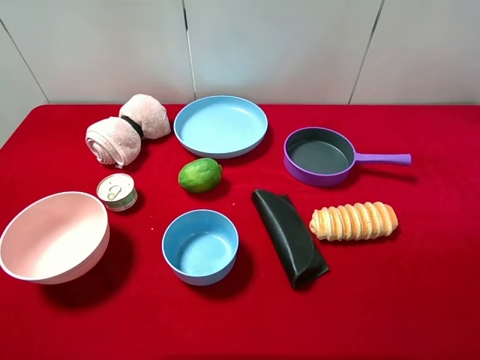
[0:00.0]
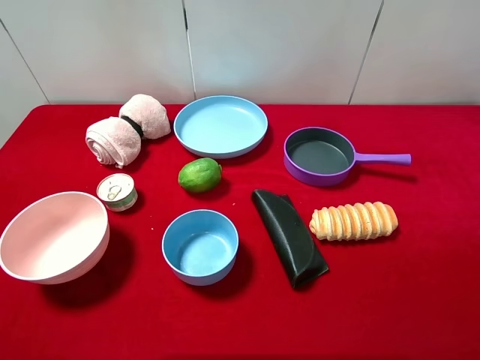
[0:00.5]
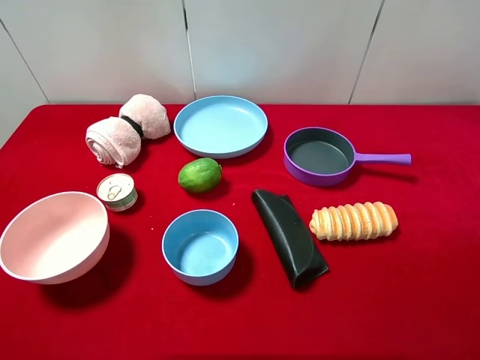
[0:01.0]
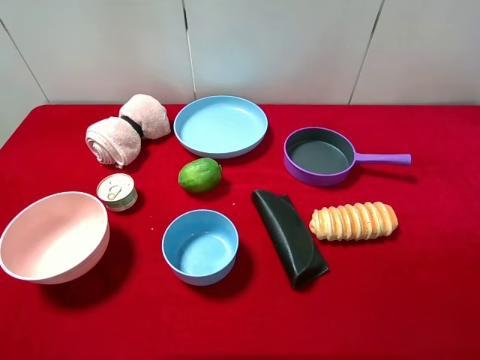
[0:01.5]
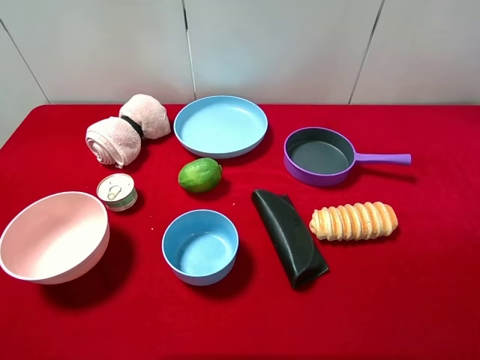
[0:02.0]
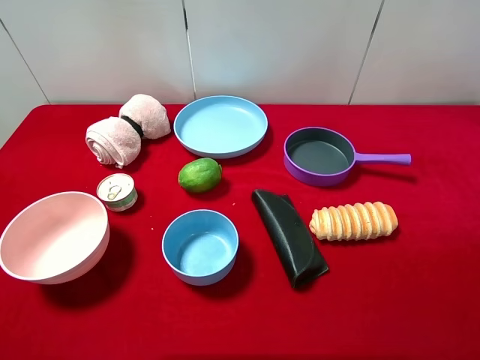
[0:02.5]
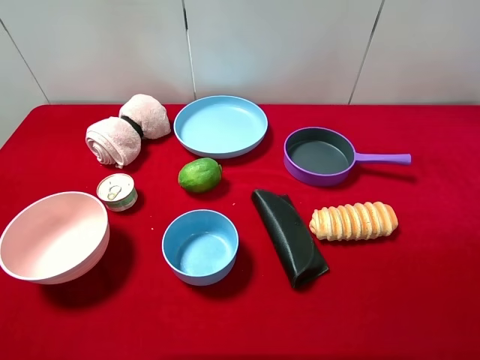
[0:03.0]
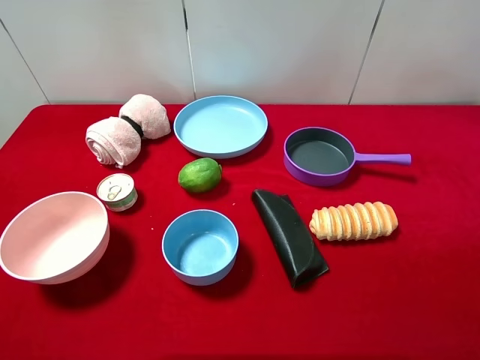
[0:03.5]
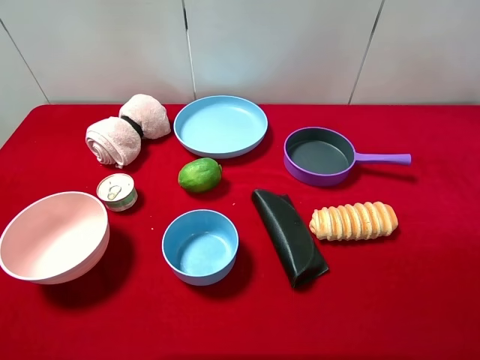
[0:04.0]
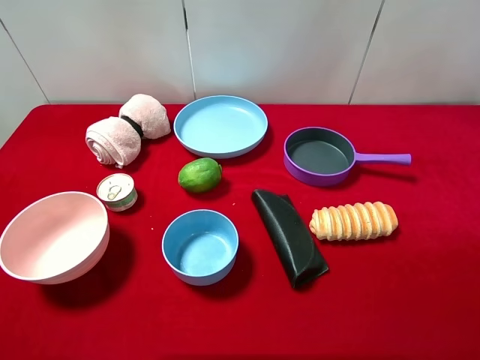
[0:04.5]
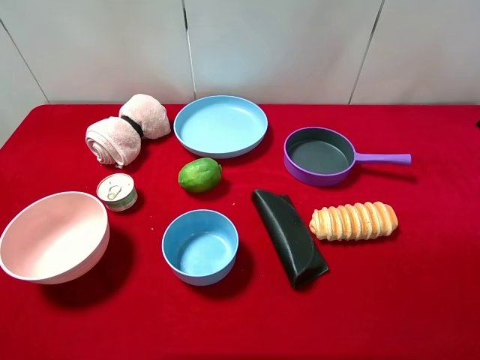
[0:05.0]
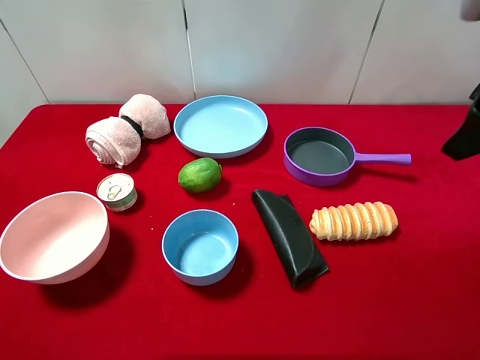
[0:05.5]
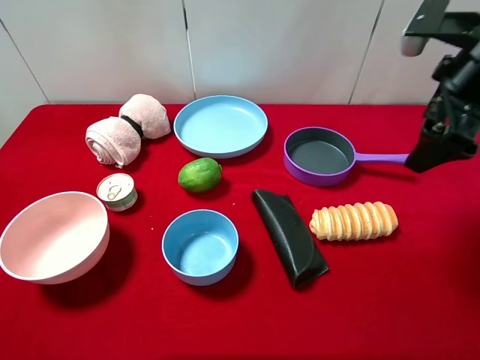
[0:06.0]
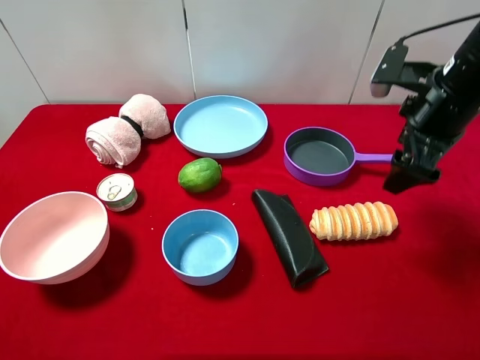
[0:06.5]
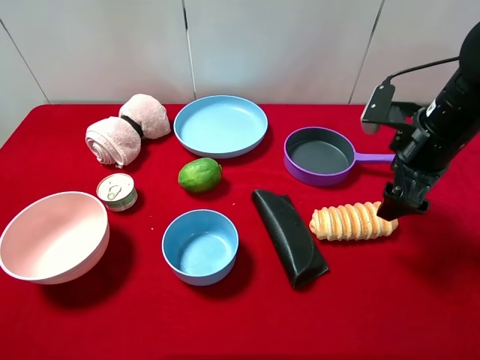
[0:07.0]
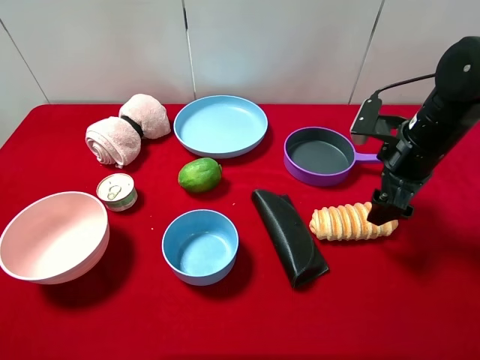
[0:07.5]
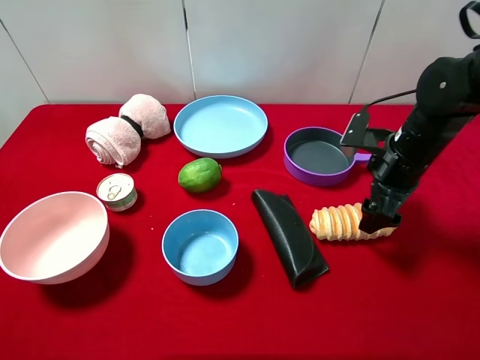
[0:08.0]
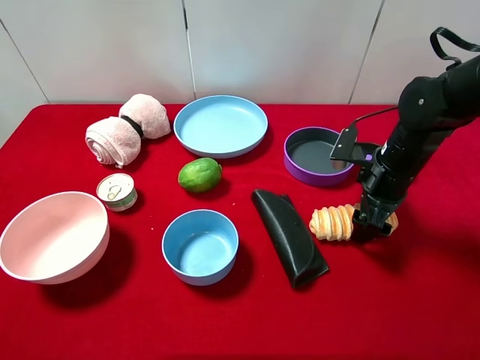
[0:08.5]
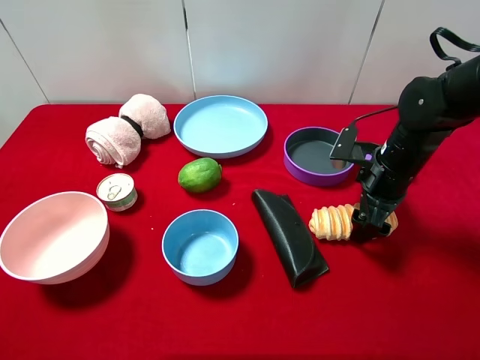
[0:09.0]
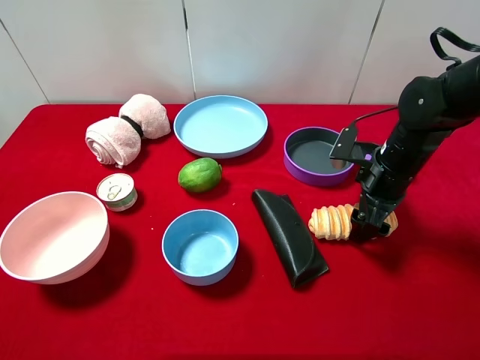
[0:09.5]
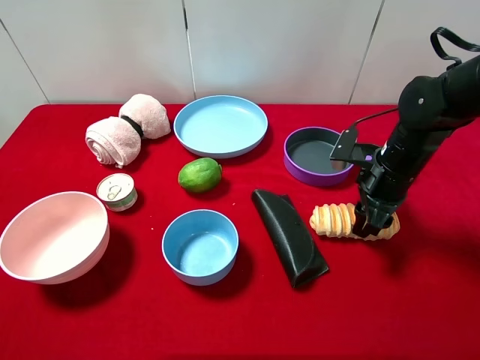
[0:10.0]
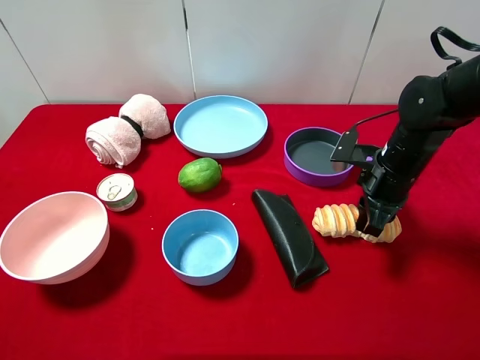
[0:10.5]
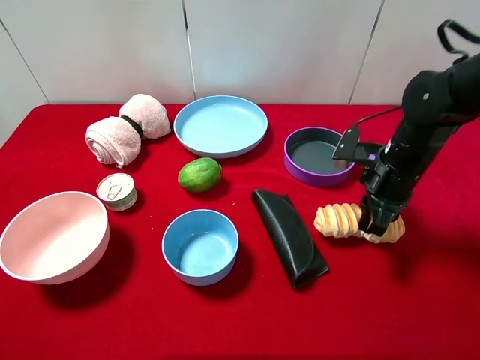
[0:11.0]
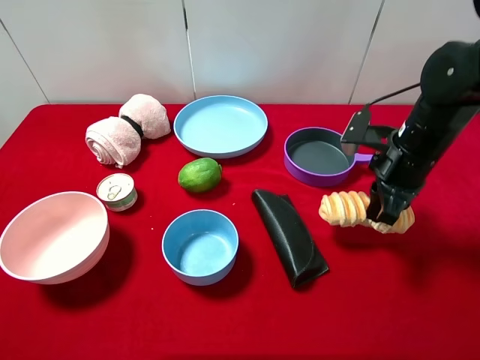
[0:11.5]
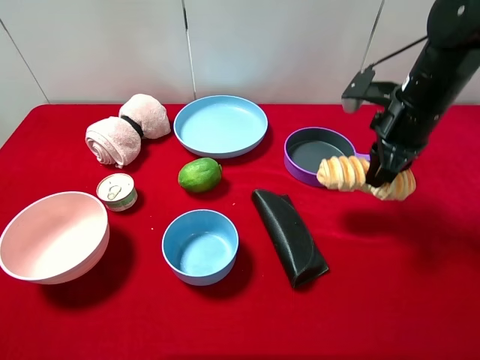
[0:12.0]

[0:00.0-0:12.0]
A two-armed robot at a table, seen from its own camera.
Task of the whole recording: pick up an item with a gripper and place it in a random container on the desktop.
0:04.0 to 0:06.0: The right gripper heads forward, covering about 20 cm.
0:06.0 to 0:08.0: The right gripper travels downward by approximately 15 cm.
0:08.0 to 0:10.0: The right gripper closes.
0:10.0 to 0:12.0: The right gripper heads upward, covering some 10 cm, and closes its fingers.

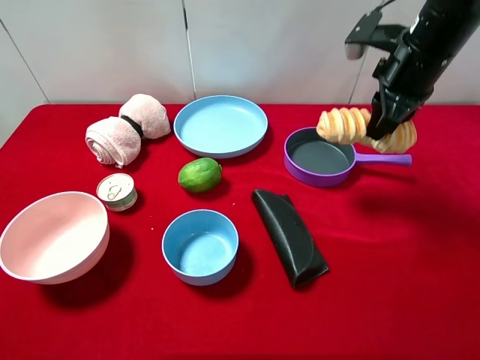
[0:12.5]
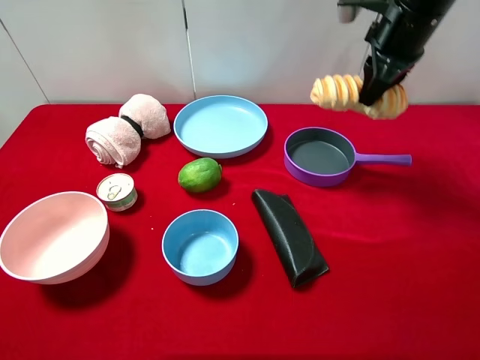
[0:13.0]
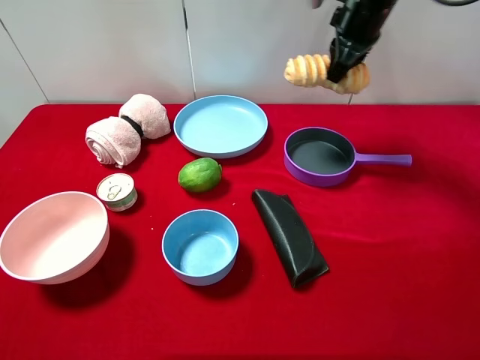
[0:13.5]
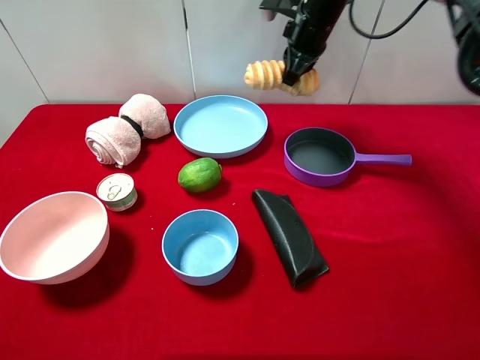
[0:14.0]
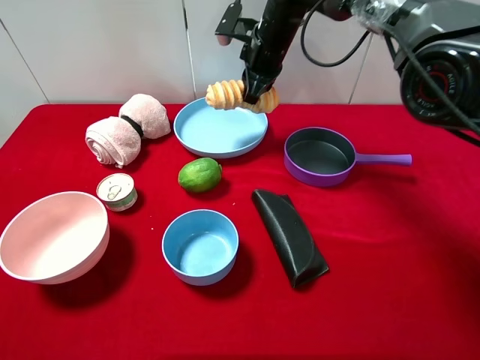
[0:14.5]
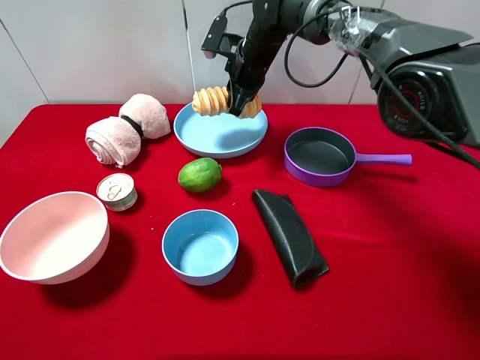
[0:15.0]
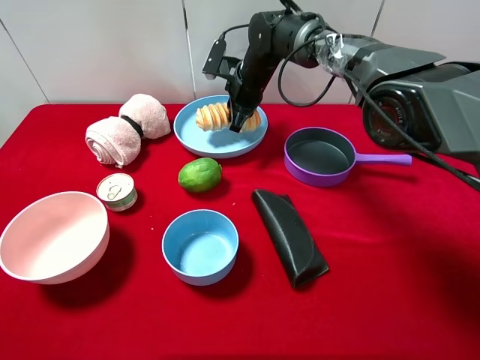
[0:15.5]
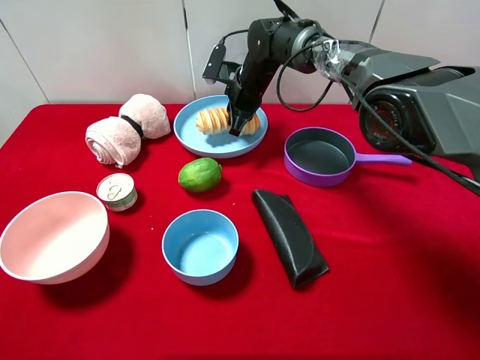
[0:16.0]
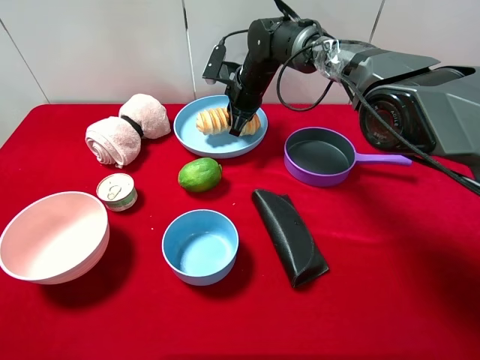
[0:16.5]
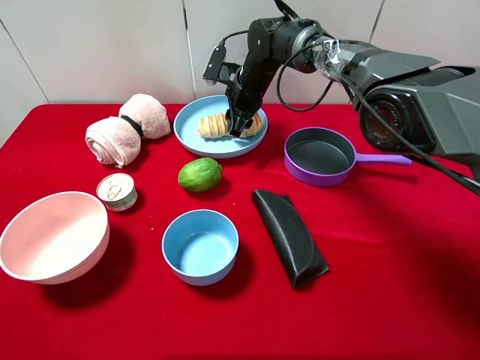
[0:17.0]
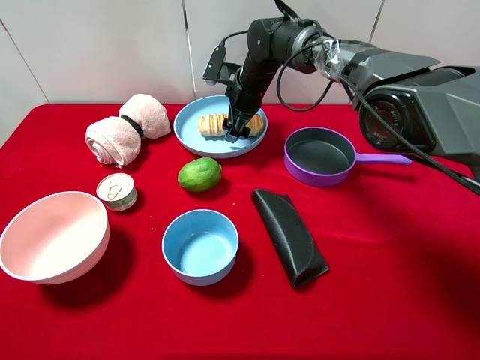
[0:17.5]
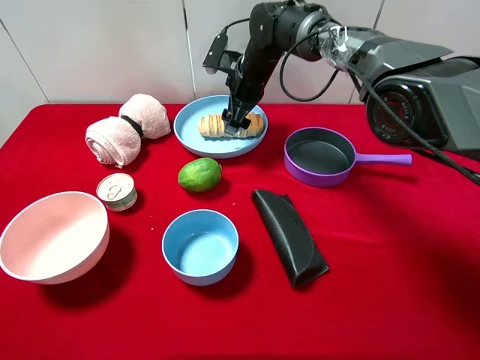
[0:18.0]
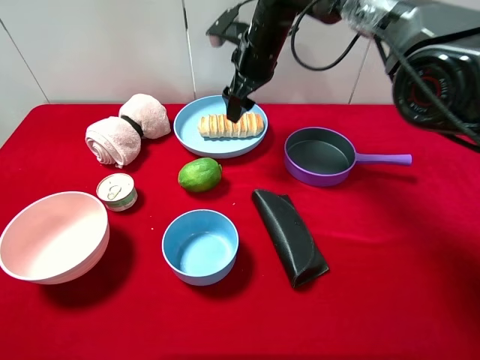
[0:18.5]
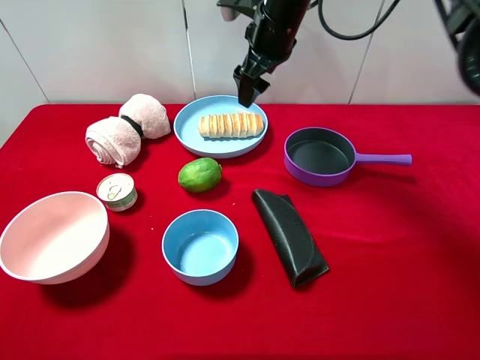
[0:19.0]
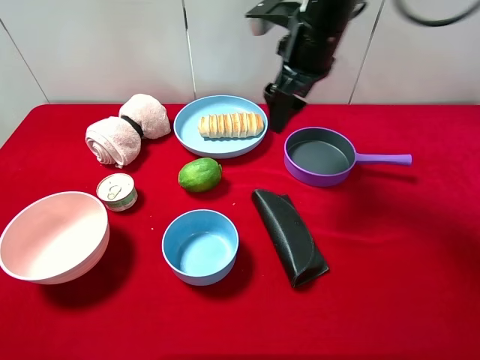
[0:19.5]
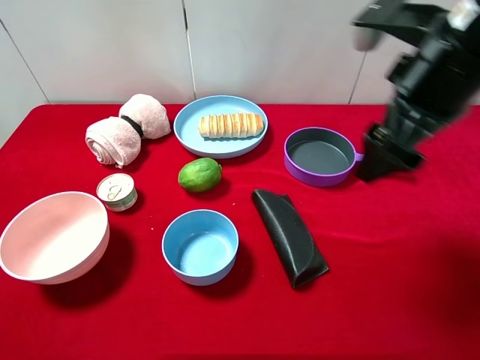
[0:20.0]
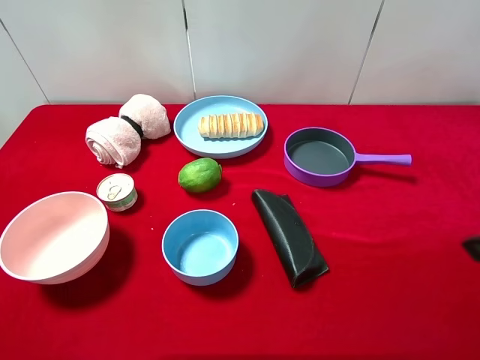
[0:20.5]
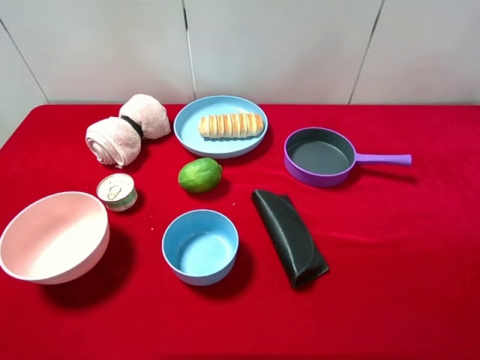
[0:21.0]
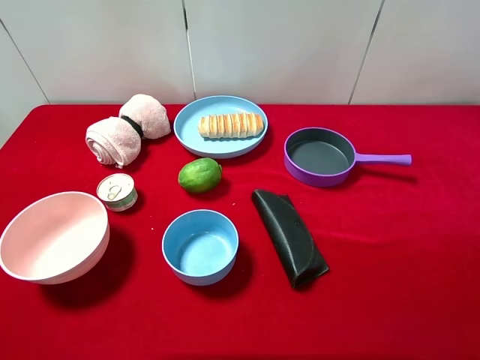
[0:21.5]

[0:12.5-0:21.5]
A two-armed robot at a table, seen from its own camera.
Task of the whole recording: pick up an item with a gripper and place it in a random container on the desktop.
0:12.5 to 0:14.5: The right gripper travels to the left and forward by about 20 cm.
0:14.5 to 0:17.0: The right gripper travels downward by about 10 cm, and opens.
0:17.0 to 0:19.5: The right gripper shifts roughly 20 cm upward, backward and to the right, and opens its fingers.
0:19.5 to 0:21.5: The right gripper heads backward and to the right, covering about 40 cm.

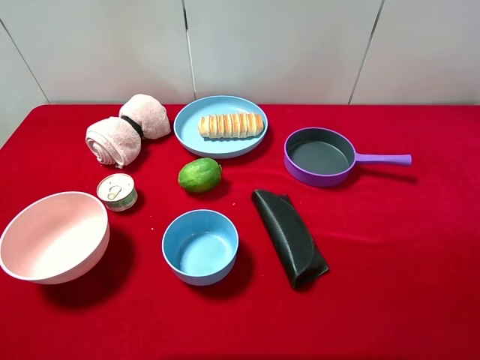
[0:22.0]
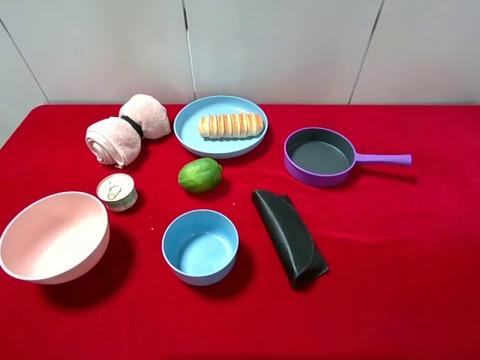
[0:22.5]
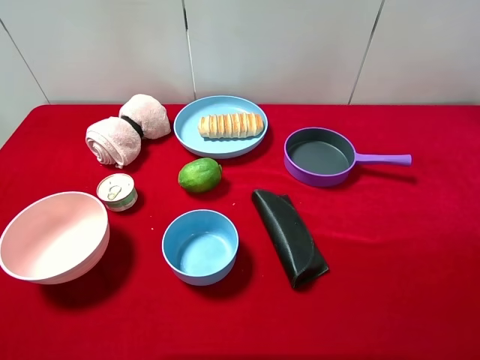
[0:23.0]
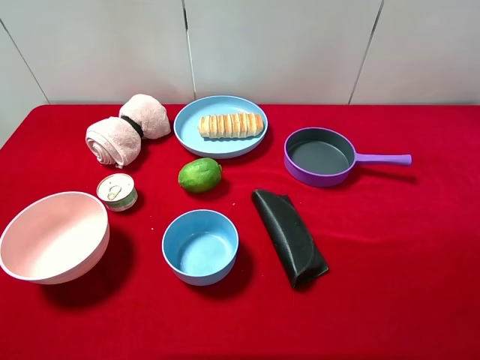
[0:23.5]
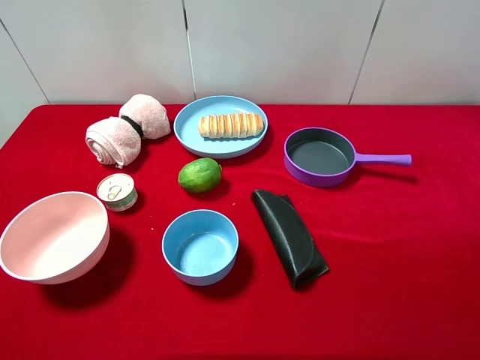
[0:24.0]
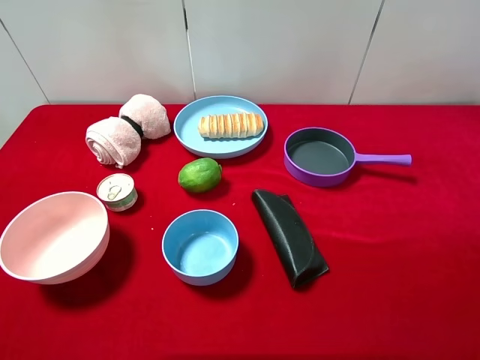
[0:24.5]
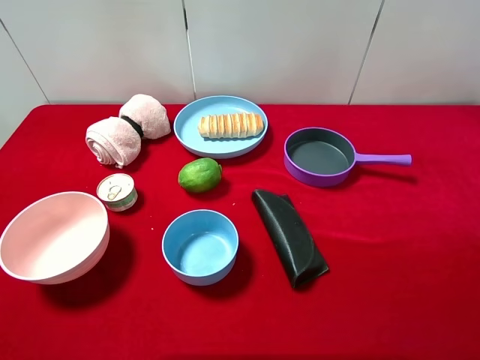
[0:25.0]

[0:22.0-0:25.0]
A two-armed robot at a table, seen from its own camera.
Task of the whole recording: pick up an item with a gripper and place it in a random container on the desktop.
0:22.0 to 0:25.0: Neither gripper changes place.

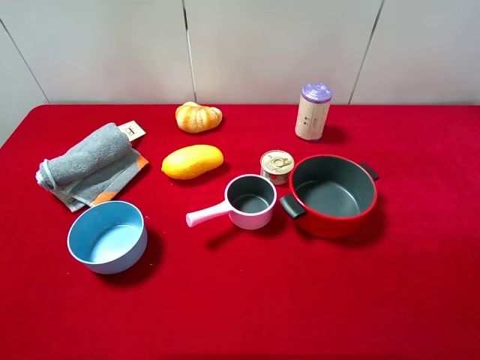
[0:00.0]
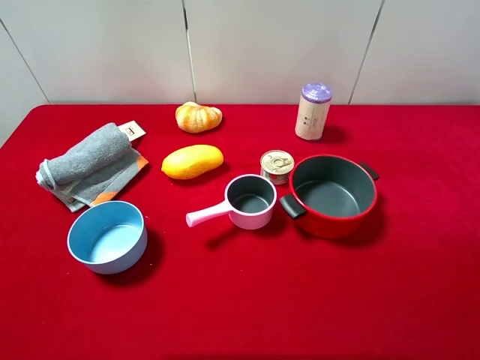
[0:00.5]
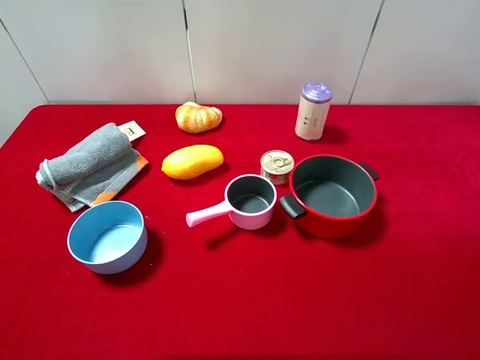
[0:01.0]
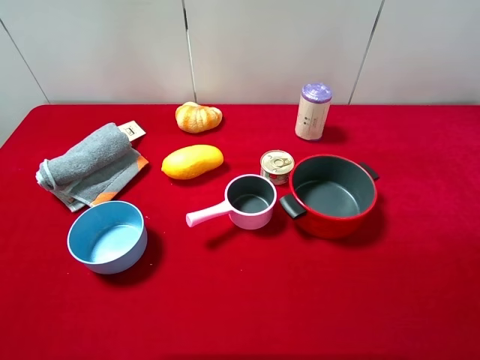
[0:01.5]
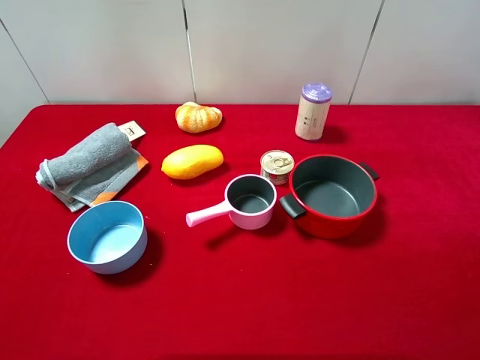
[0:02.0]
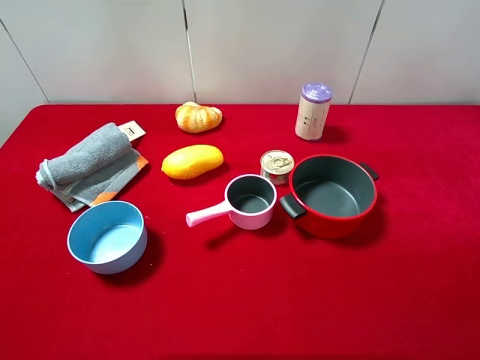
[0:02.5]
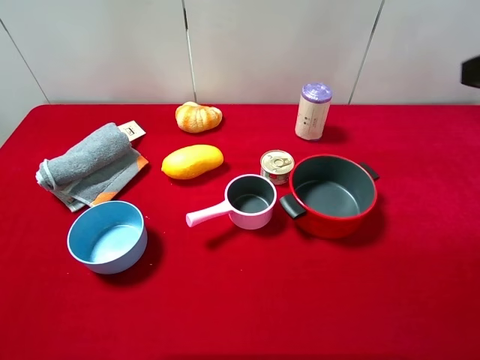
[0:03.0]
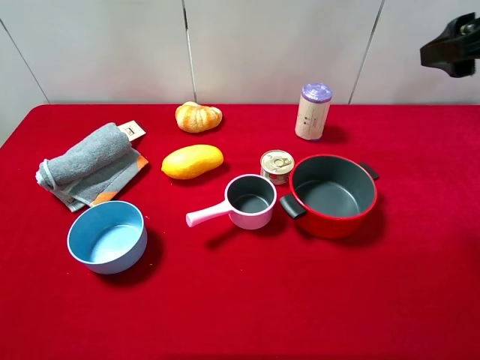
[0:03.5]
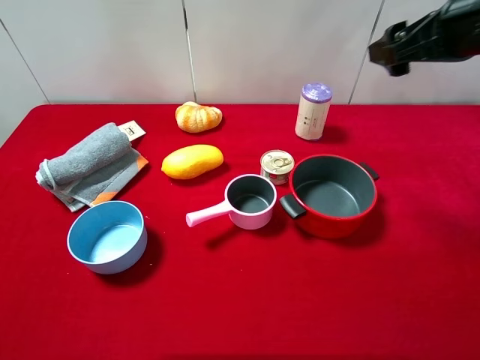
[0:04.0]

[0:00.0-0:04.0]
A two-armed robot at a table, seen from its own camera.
Task of the whole recording: pick up an item with a gripper and place it in a random container on the desktop.
0:00.0 to 0:02.0: Both grippers stay about where they are.
0:02.0 to 0:04.0: The right gripper shifts about 30 cm forward.
